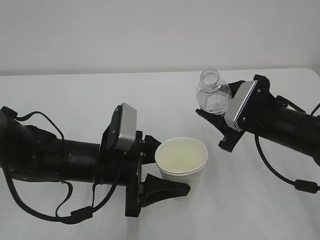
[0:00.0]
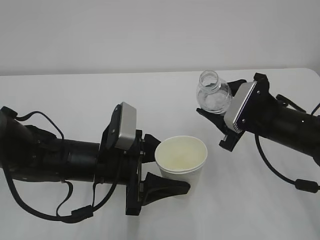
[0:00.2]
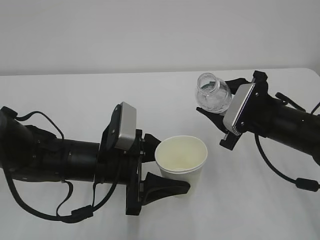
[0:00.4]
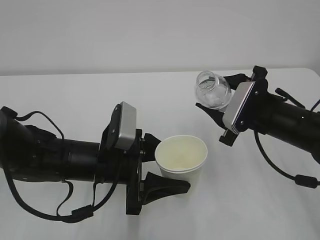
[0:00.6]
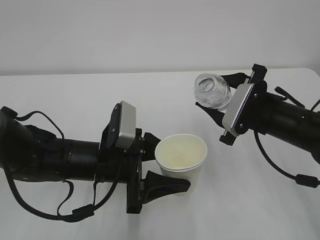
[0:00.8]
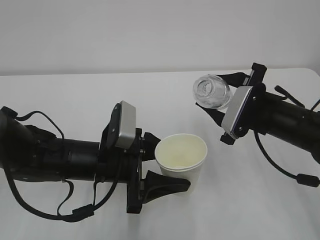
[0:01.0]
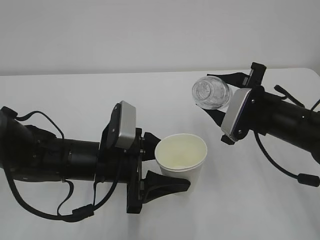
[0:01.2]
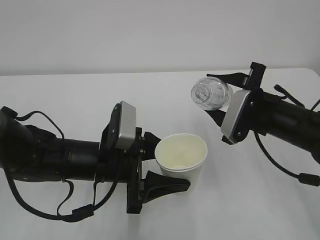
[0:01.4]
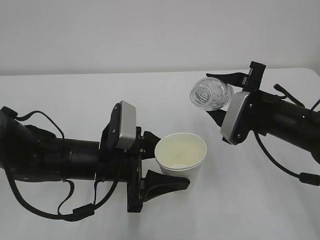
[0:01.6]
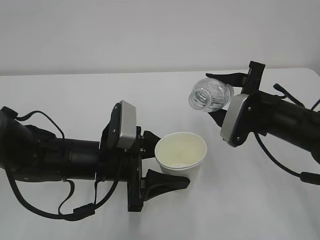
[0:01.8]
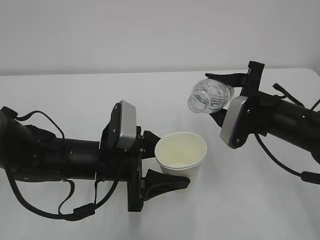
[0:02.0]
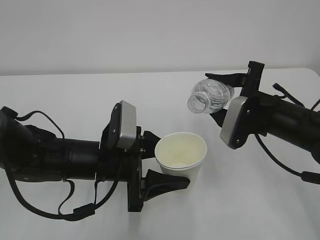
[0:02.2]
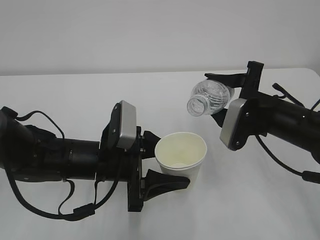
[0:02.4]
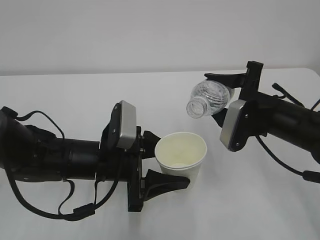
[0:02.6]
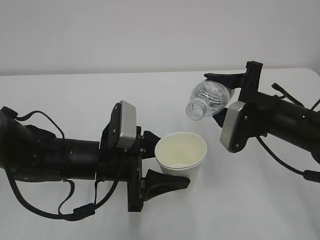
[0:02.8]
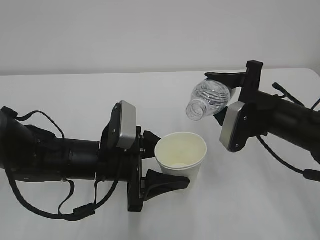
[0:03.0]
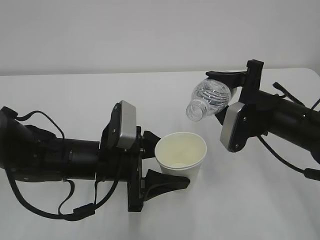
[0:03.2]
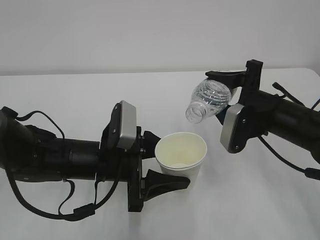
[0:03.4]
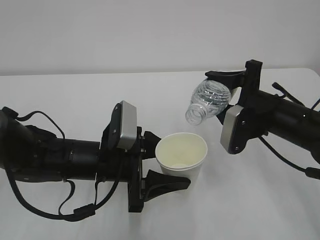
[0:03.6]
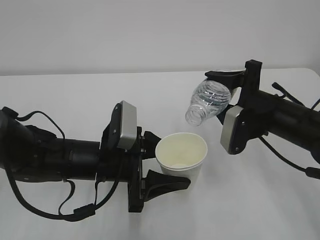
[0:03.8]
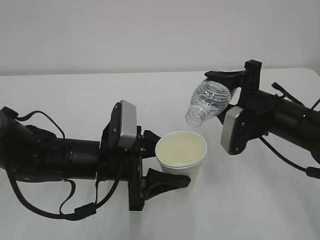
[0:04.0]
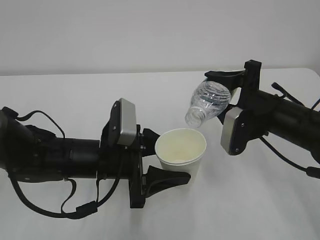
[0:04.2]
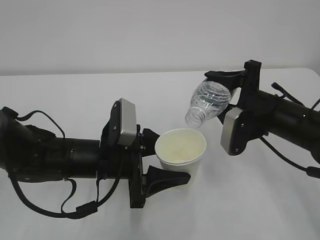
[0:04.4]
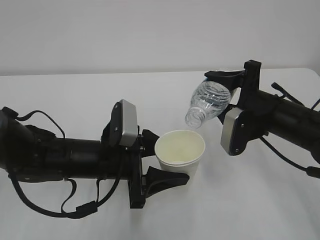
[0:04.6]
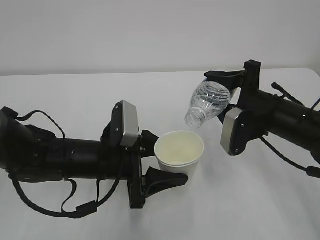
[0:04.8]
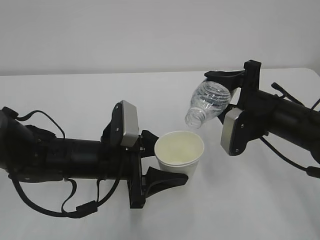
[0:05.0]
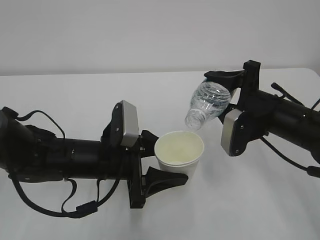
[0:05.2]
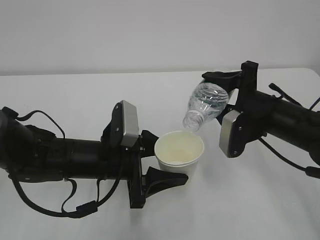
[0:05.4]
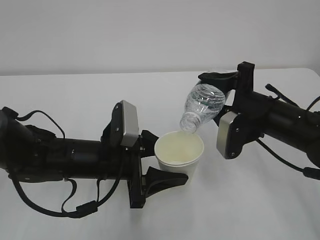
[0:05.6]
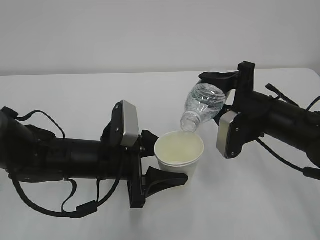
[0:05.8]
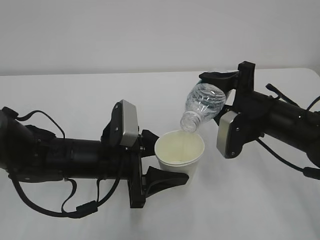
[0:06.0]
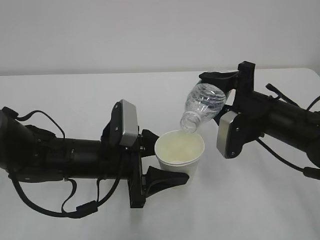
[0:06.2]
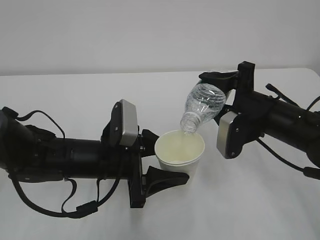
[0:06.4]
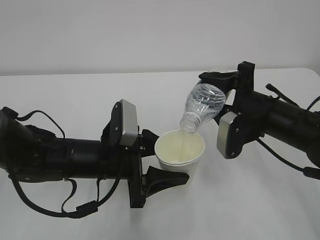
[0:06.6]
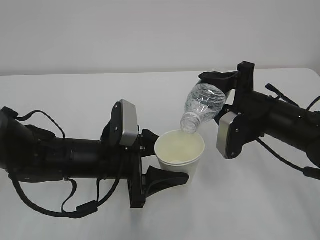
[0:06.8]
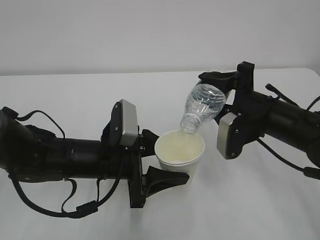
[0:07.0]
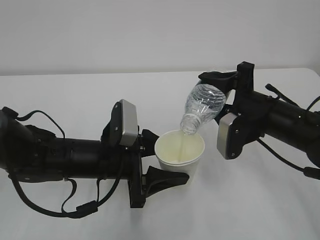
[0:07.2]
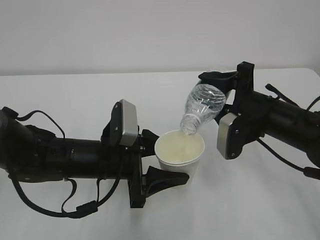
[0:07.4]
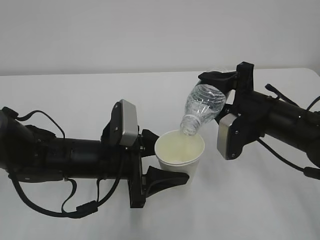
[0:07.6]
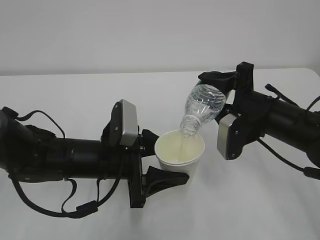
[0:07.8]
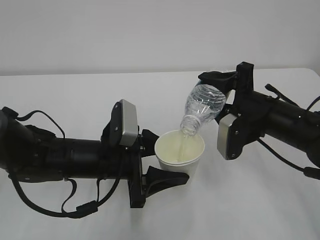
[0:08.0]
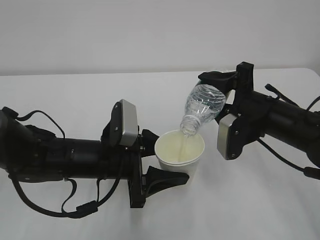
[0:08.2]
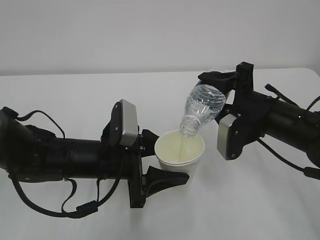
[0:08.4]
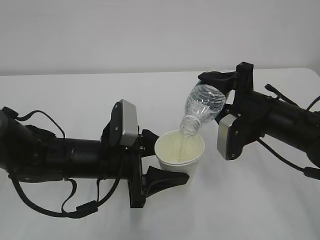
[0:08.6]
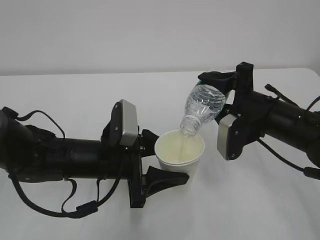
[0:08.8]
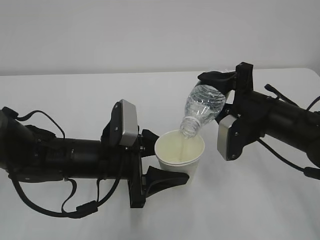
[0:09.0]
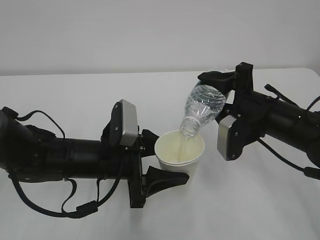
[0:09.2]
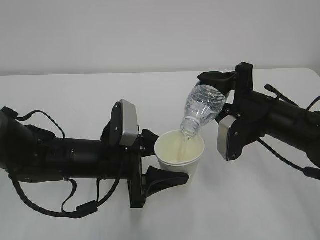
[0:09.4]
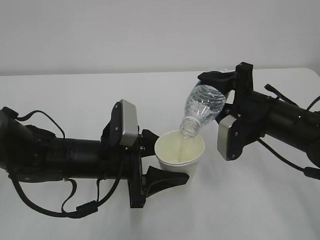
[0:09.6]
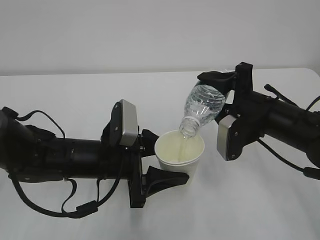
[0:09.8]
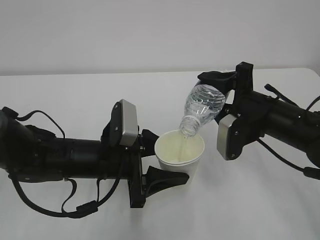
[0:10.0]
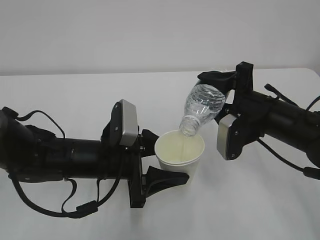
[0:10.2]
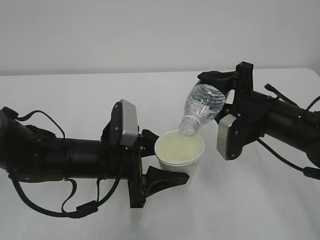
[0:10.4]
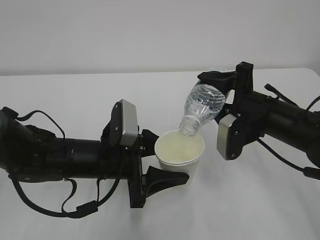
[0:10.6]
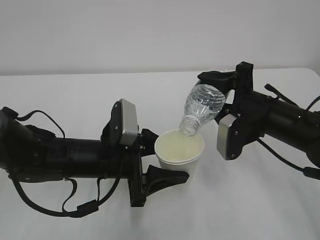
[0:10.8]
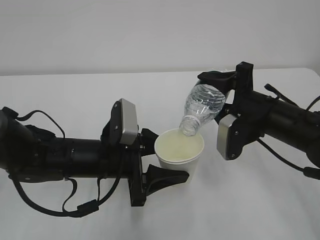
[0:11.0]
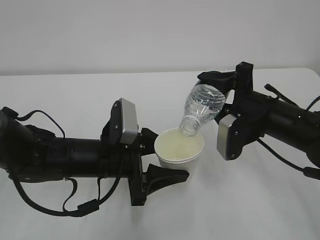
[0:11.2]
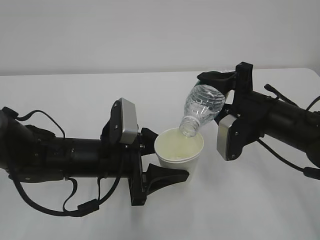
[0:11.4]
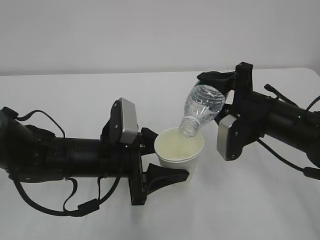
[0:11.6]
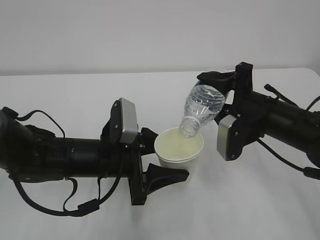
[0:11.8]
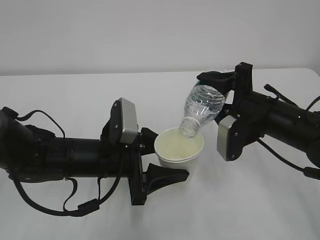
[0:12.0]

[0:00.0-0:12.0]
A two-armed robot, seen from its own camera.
0:01.6 to 0:03.0: The grippers make only small movements.
0:03.0 to 0:04.4: The grippers make only small movements.
0:04.4 to 0:06.0: Neither gripper changes place.
0:06.0 to 0:07.6: The two grippers keep their place.
0:07.6 to 0:12.0: Both grippers stay put.

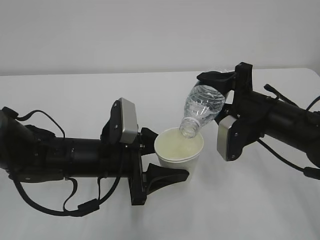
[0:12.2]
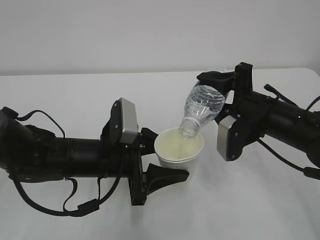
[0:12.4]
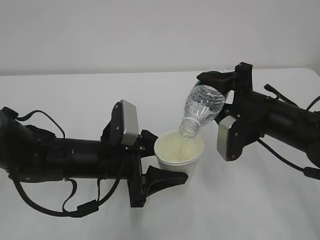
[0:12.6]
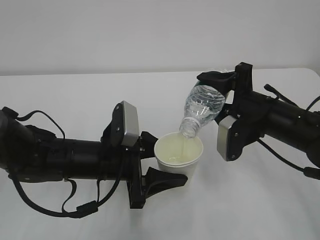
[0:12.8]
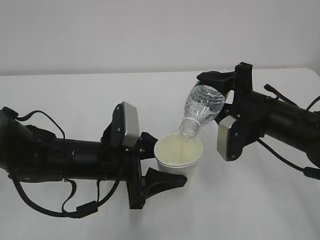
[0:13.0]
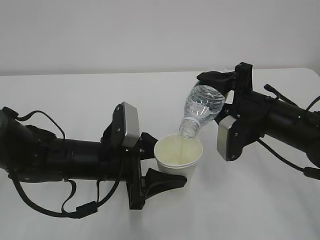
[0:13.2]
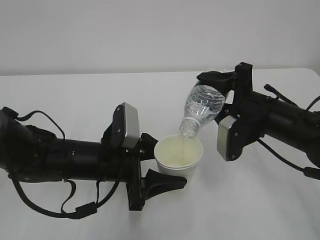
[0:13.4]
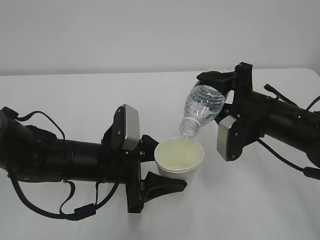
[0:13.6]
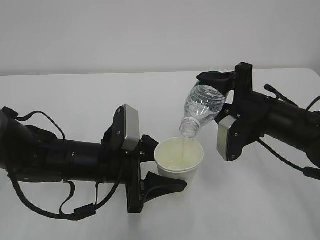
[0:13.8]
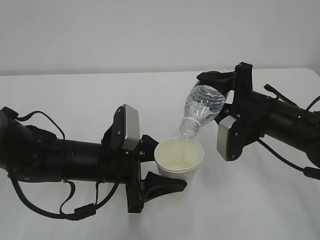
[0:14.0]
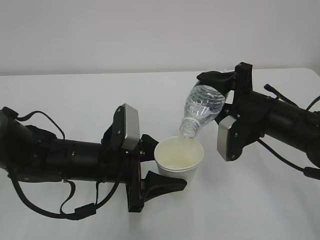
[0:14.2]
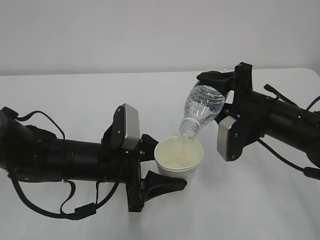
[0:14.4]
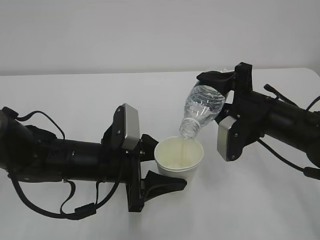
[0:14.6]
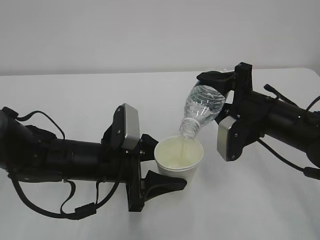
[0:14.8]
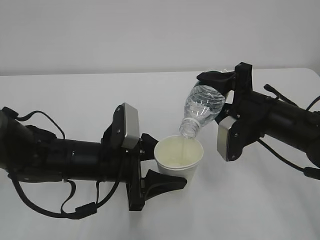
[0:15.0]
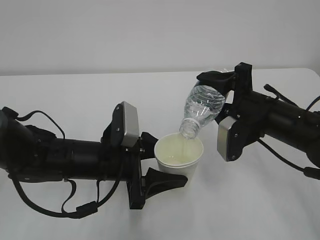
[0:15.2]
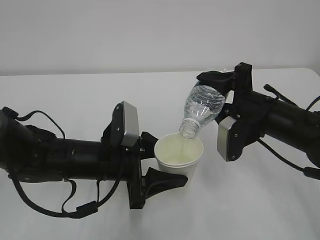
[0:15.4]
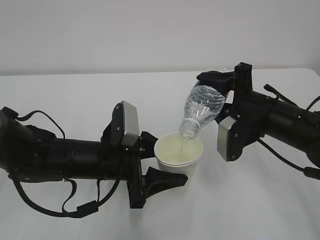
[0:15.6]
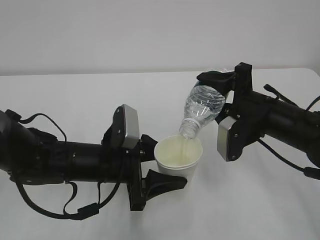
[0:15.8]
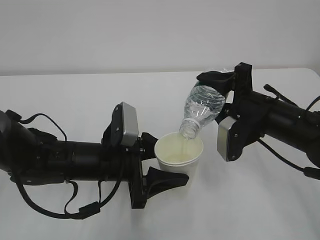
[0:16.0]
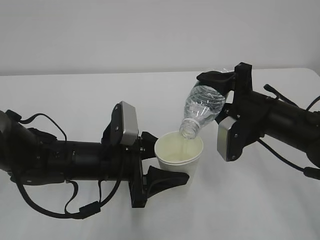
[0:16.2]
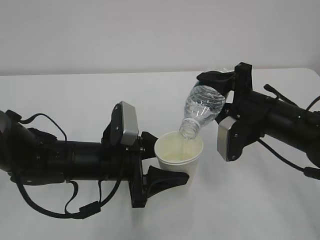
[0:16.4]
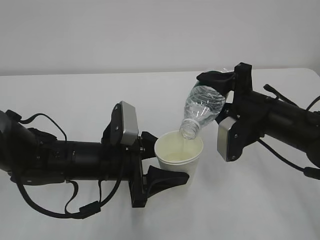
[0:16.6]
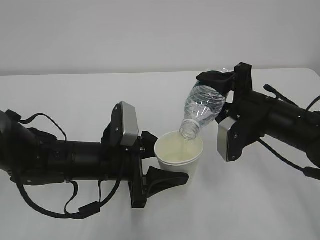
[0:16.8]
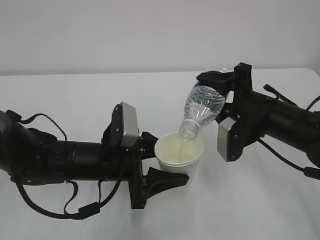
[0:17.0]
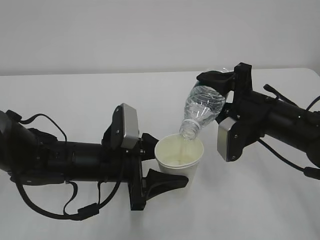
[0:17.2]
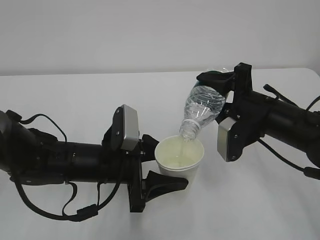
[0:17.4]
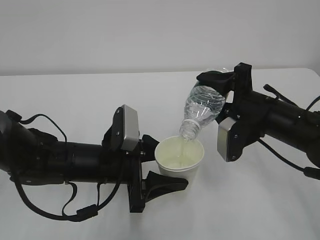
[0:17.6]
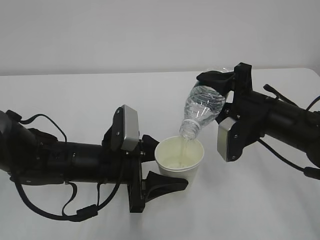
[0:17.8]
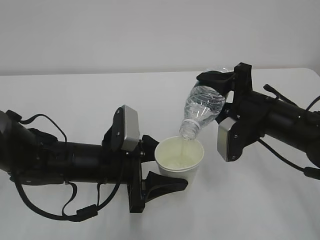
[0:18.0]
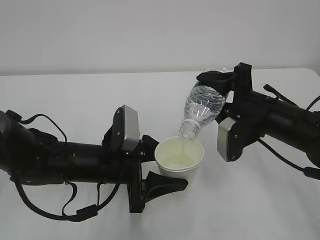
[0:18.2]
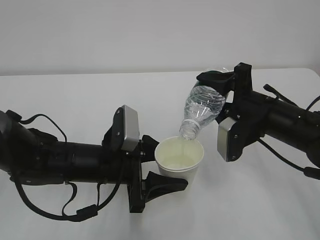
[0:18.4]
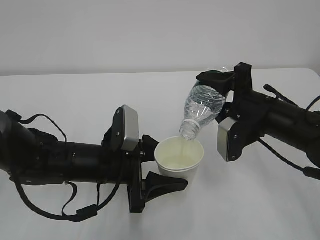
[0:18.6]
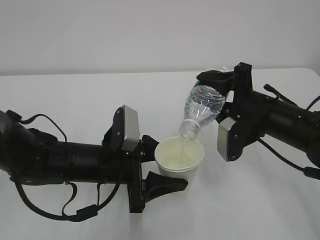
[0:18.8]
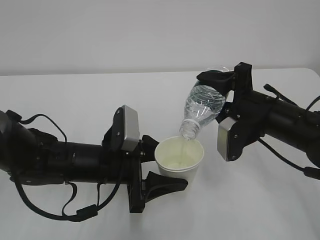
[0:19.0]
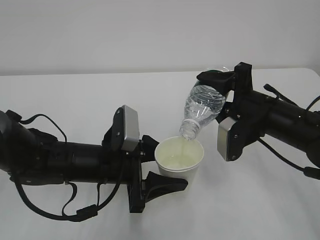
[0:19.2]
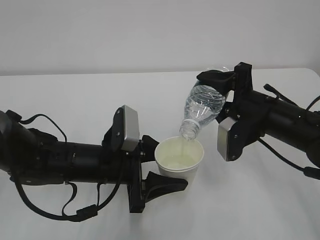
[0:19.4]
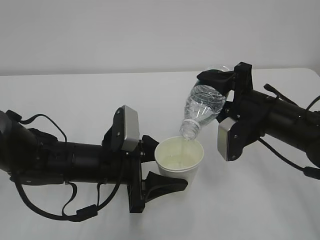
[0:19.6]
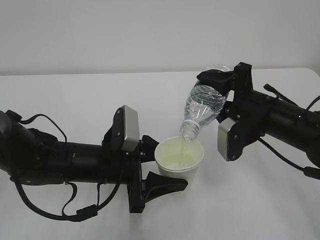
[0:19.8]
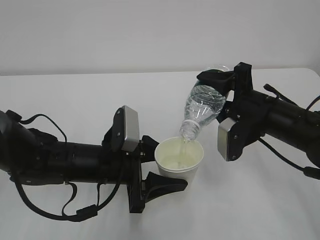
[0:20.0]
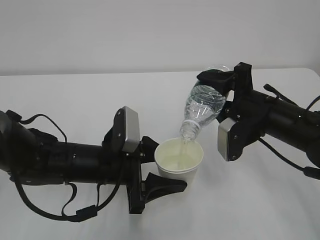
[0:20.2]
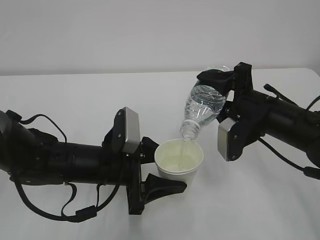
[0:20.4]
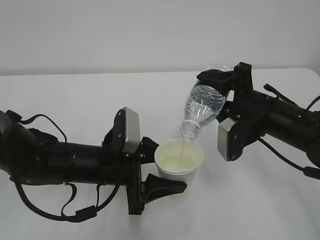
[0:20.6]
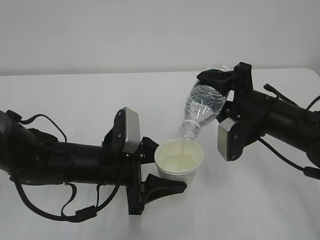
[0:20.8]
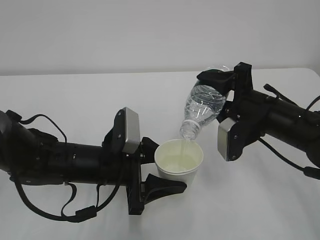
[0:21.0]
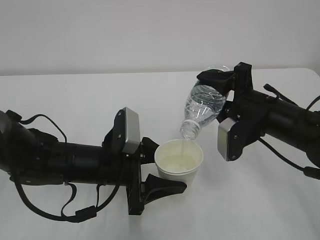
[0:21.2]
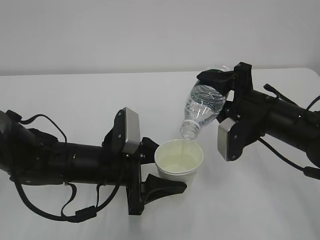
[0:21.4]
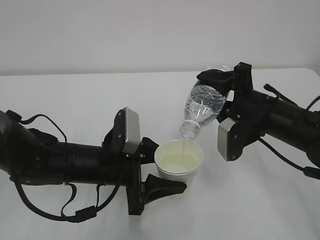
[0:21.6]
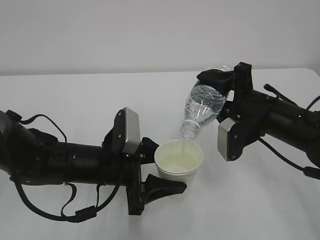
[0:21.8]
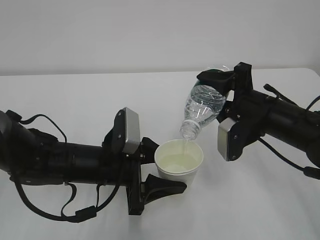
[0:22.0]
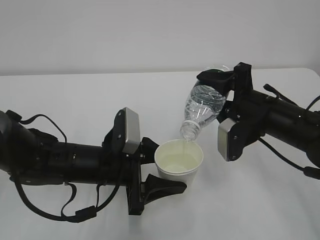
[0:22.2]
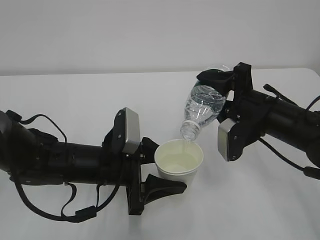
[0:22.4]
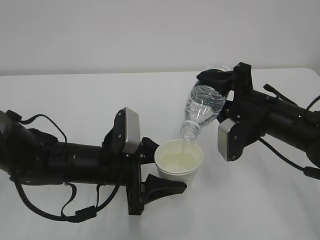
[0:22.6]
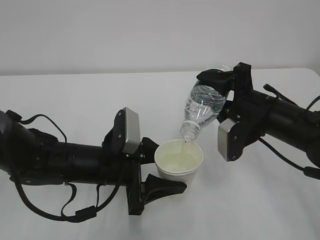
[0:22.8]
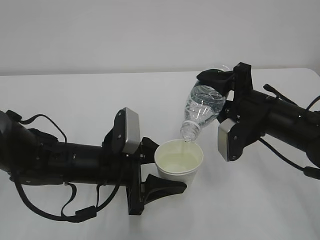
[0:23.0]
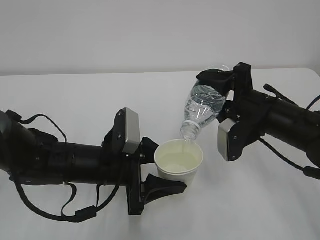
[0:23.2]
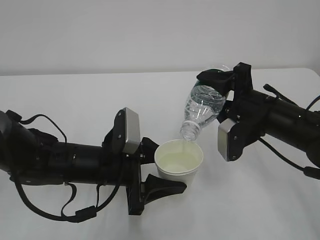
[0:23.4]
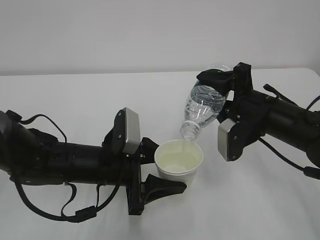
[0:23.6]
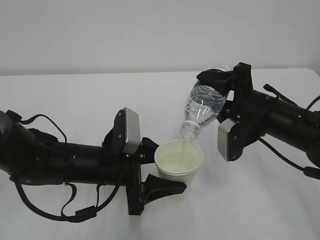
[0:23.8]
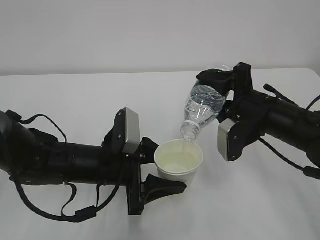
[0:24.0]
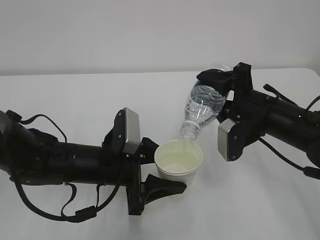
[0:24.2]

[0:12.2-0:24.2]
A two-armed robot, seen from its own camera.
0:12.2 to 0:21.2: Both grippers stay put.
0:21.2 to 0:24.2: Neither gripper changes place.
